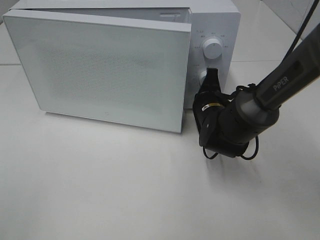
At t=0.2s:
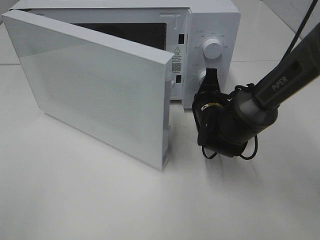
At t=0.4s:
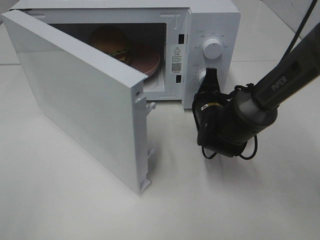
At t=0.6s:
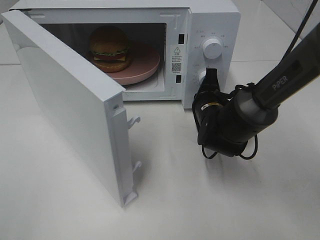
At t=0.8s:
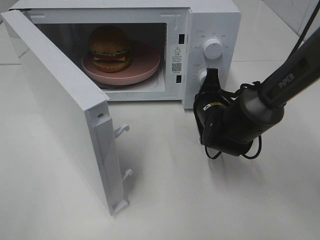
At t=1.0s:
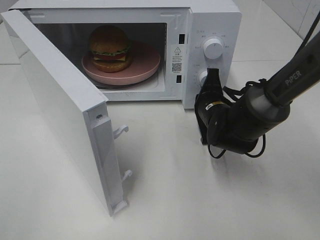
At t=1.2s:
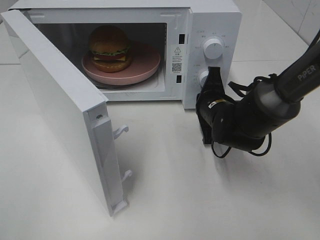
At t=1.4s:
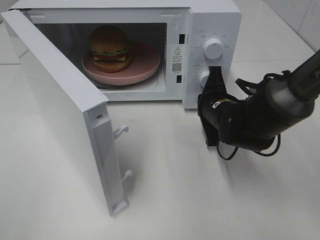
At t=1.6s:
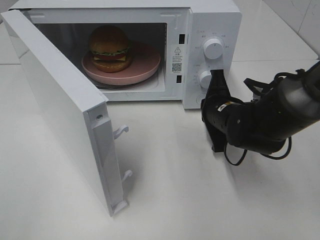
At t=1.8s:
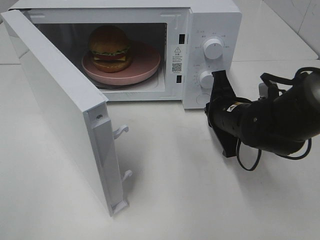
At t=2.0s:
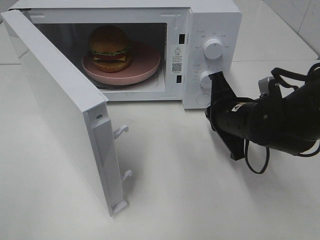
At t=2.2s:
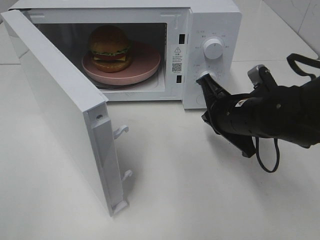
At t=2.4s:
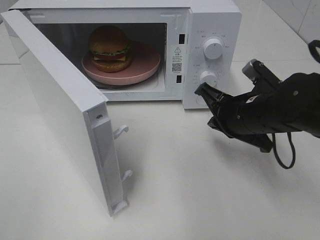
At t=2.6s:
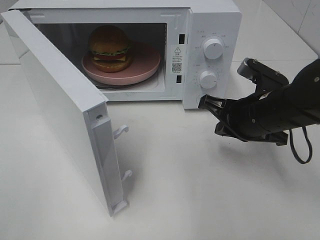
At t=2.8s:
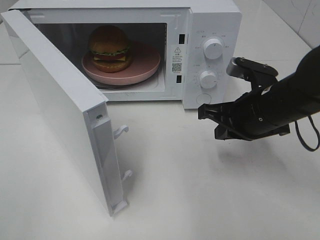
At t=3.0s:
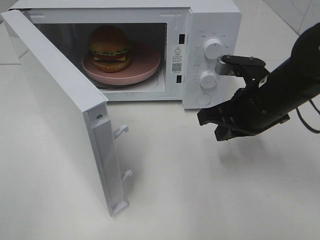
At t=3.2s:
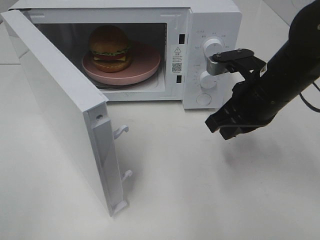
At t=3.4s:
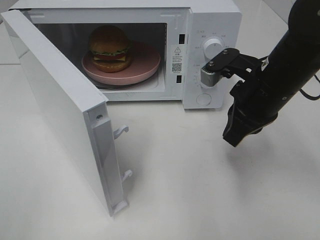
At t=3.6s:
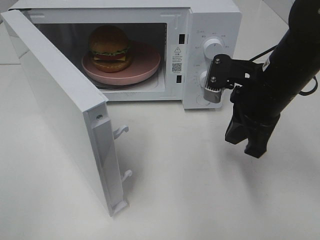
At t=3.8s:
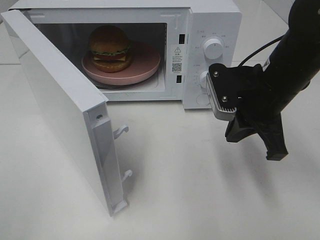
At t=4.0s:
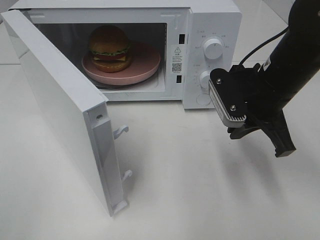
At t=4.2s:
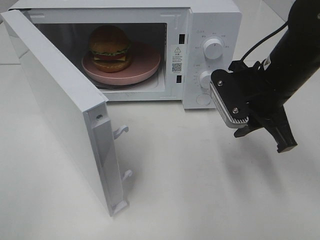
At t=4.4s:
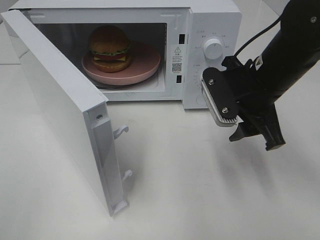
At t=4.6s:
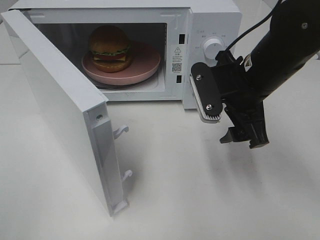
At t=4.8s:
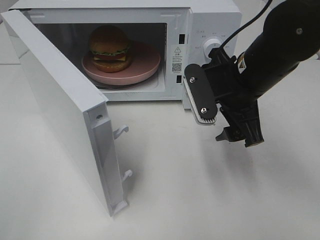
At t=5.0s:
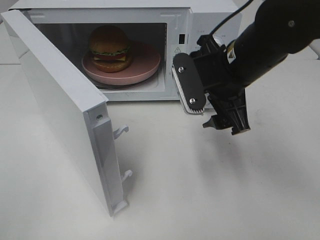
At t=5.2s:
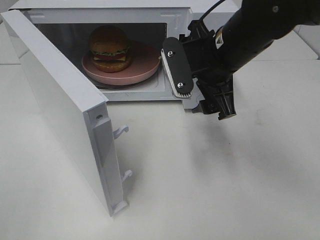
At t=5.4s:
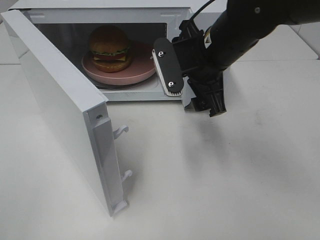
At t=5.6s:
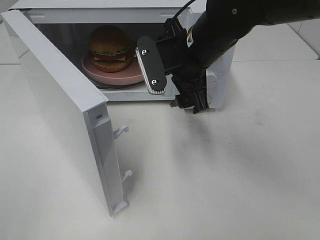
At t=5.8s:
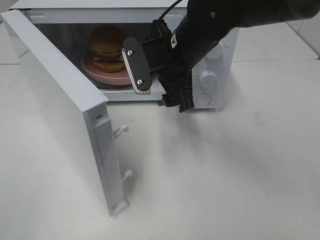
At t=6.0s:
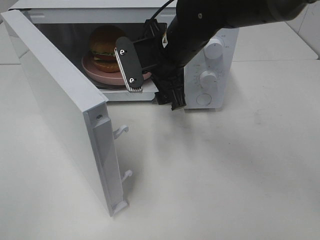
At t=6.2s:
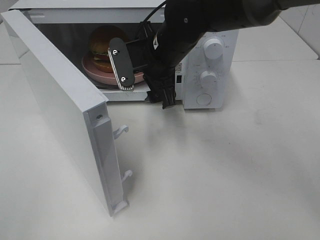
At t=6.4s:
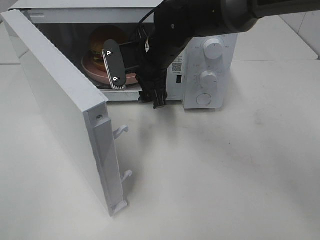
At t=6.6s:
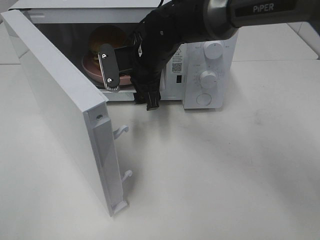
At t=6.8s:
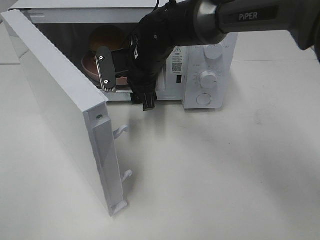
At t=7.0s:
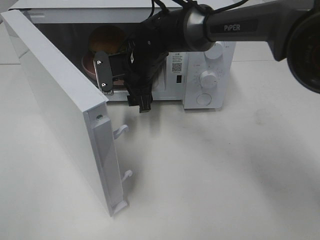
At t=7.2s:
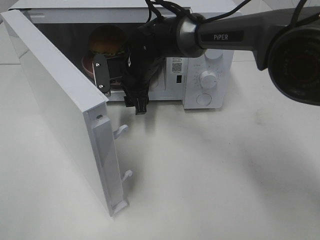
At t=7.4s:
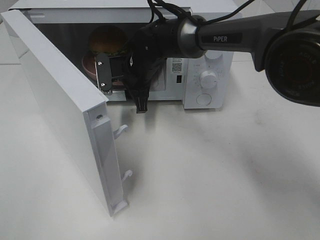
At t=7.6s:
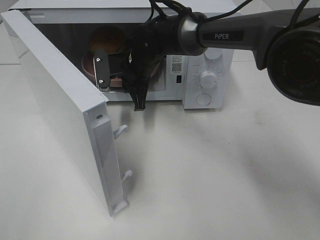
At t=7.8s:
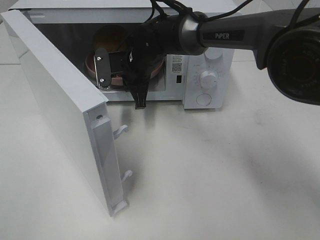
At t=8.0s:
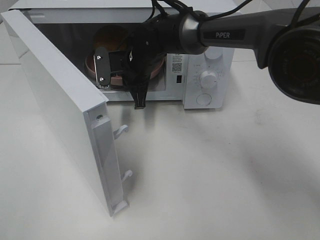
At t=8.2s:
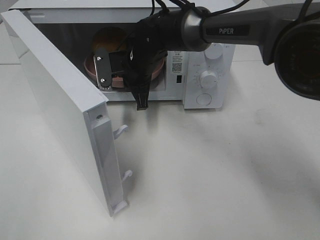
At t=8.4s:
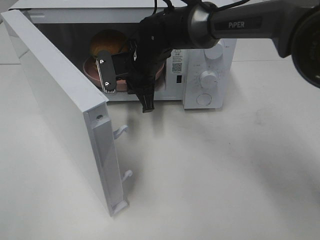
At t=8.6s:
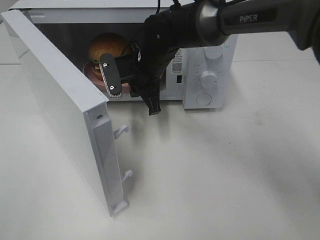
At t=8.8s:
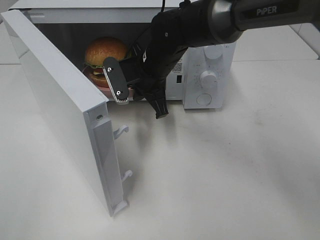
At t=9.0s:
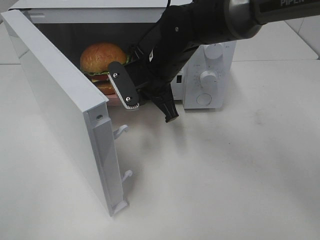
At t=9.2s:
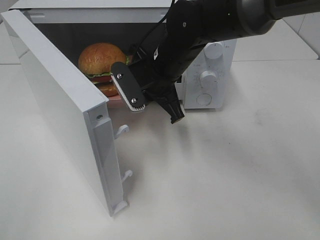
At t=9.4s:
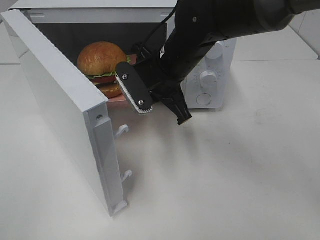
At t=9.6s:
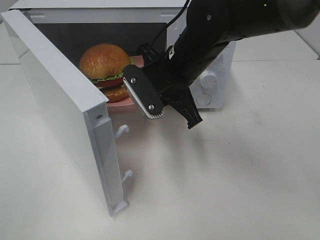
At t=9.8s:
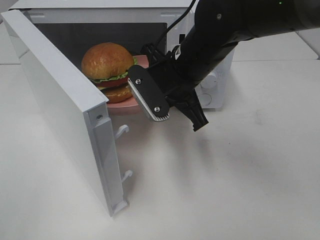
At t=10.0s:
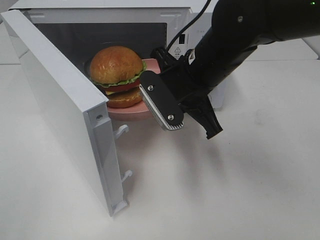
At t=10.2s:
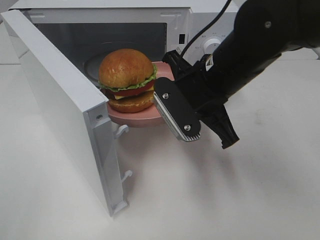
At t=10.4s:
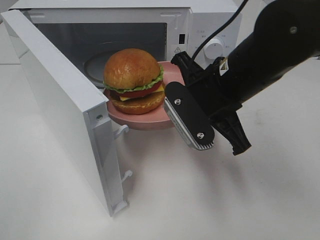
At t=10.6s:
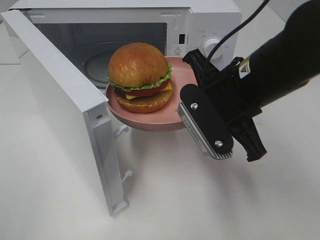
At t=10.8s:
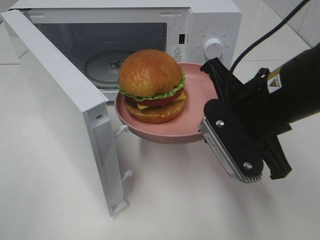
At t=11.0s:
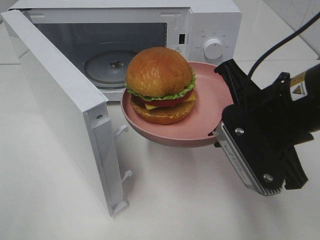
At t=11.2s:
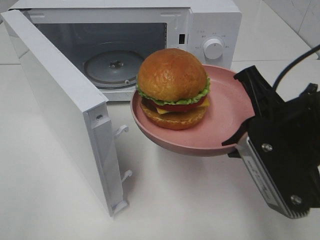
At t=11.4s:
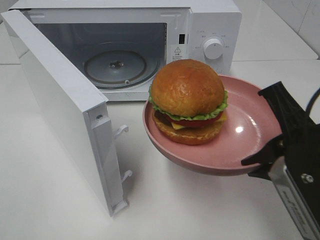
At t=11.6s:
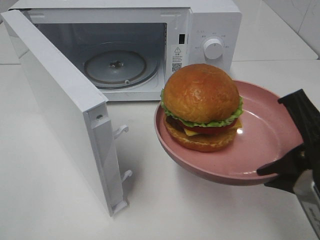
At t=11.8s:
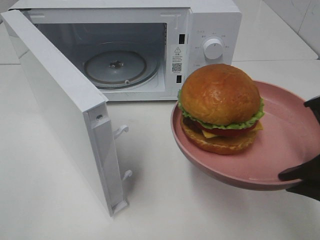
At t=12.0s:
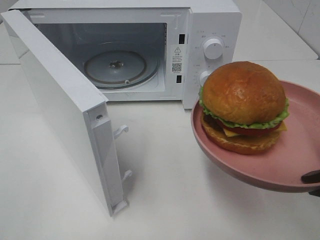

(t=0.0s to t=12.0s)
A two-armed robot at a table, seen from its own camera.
Task of the whole recording: Heat the burger.
Step, t=1.6s - t=7.6s: Right hand: grab the plate with the hamburger.
t=0.0s - t=1.6s: The right gripper changes place by some 5 cm.
t=1.6s - t=3.0s: The right gripper is displaced upward by about 10 cm.
t=3.0s - t=4.4s: The right gripper opens.
t=4.4s - t=6.0s: The right gripper is displaced to the left and forward by roughly 15 cm.
t=6.0s - t=7.6s: The right gripper goes roughly 15 cm forward, downward and to the left, and closes.
t=7.6s - t=9.0s: The right gripper is displaced backward by some 5 cm.
t=9.0s - t=10.4s: The right gripper travels backward and to the right by about 15 cm.
t=10.4s - t=12.0s: The right gripper travels backward and to the right by roughly 20 cm.

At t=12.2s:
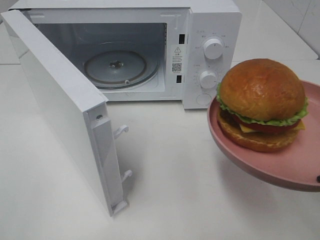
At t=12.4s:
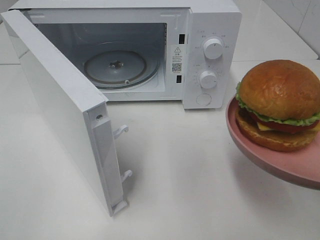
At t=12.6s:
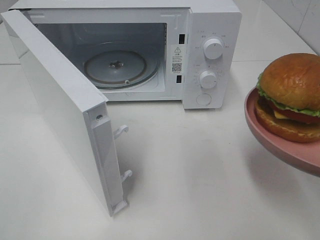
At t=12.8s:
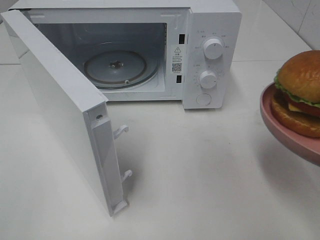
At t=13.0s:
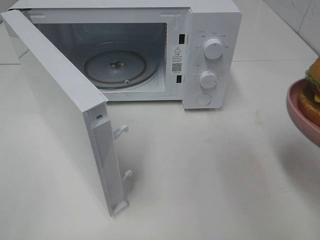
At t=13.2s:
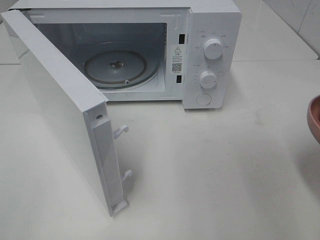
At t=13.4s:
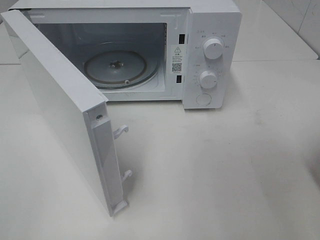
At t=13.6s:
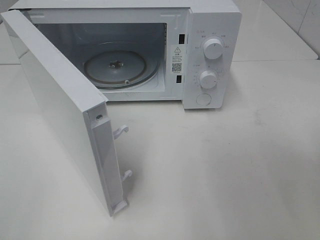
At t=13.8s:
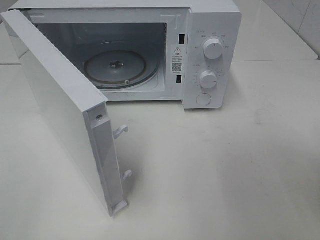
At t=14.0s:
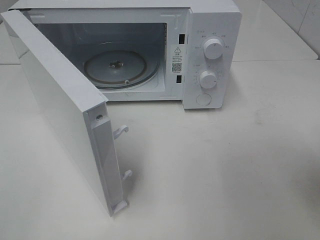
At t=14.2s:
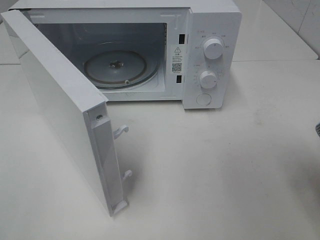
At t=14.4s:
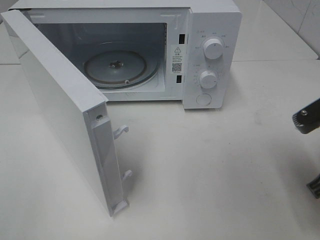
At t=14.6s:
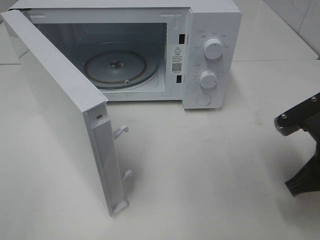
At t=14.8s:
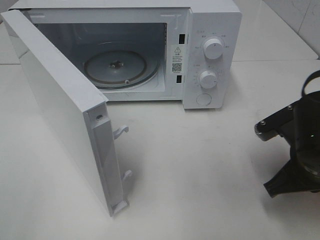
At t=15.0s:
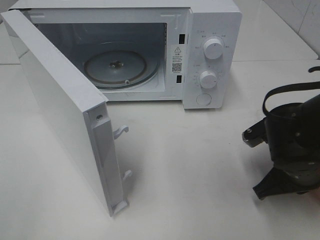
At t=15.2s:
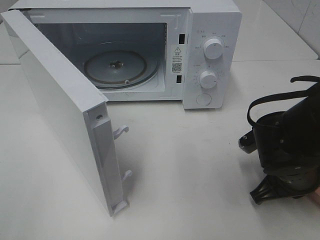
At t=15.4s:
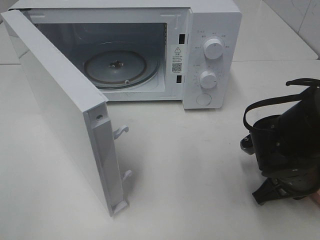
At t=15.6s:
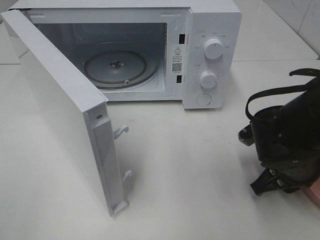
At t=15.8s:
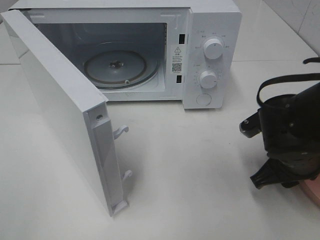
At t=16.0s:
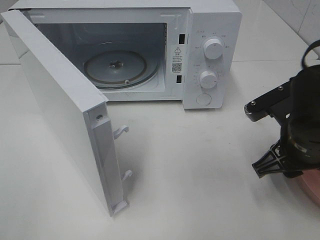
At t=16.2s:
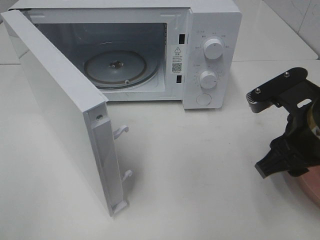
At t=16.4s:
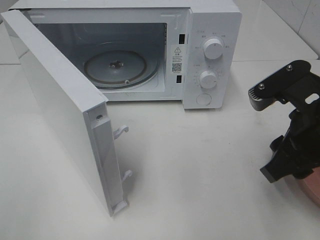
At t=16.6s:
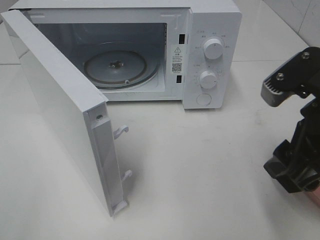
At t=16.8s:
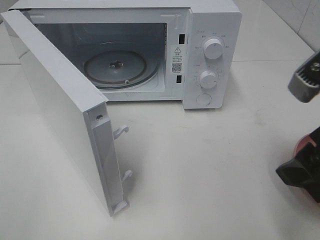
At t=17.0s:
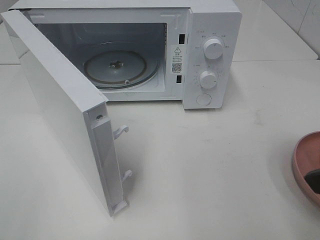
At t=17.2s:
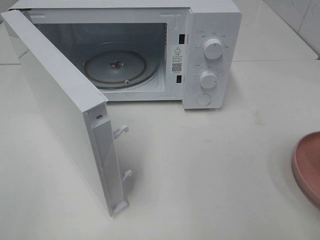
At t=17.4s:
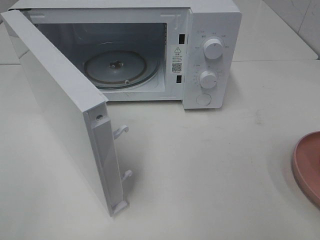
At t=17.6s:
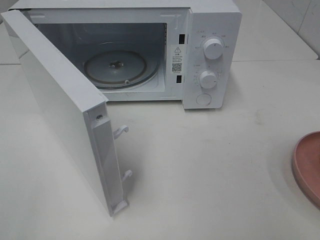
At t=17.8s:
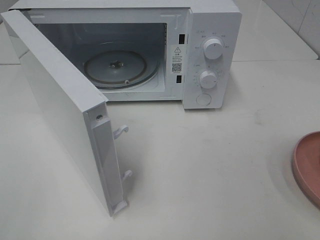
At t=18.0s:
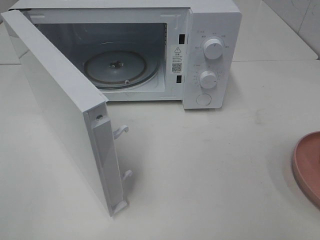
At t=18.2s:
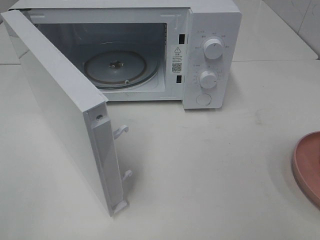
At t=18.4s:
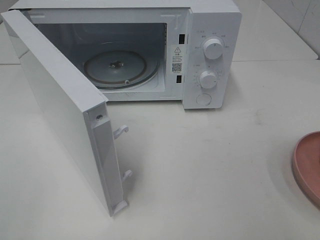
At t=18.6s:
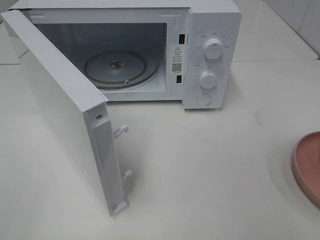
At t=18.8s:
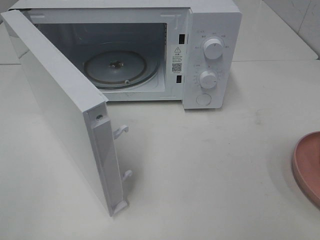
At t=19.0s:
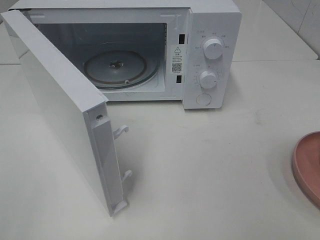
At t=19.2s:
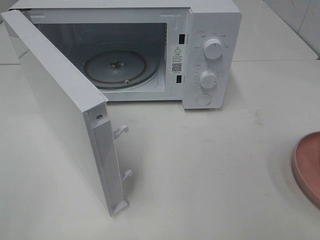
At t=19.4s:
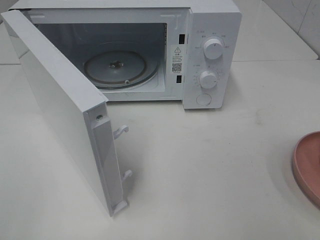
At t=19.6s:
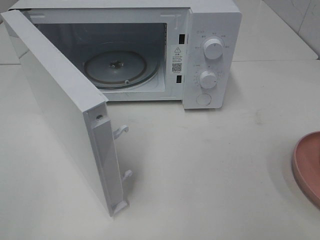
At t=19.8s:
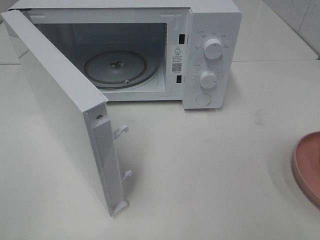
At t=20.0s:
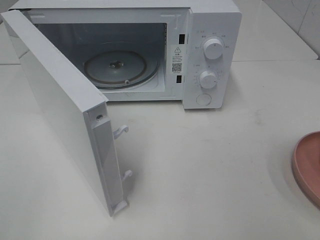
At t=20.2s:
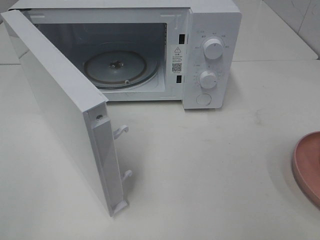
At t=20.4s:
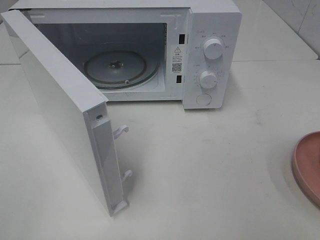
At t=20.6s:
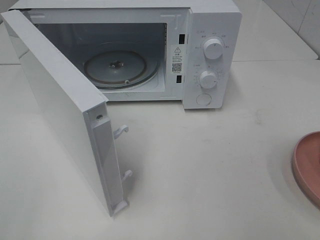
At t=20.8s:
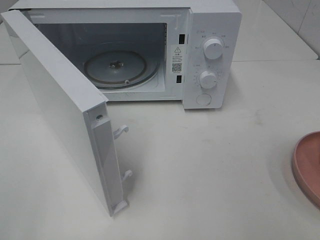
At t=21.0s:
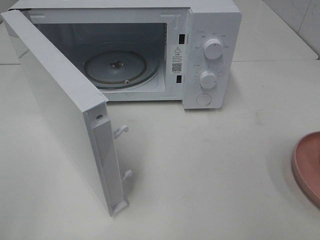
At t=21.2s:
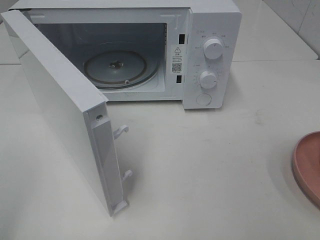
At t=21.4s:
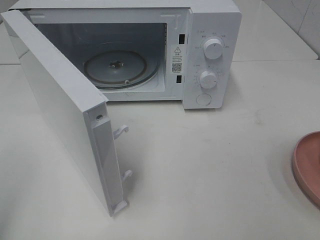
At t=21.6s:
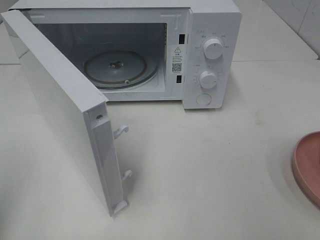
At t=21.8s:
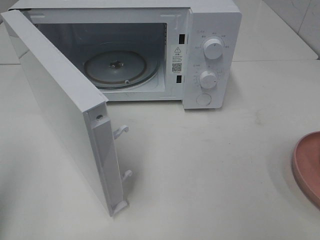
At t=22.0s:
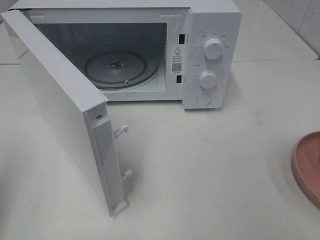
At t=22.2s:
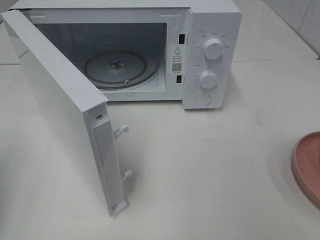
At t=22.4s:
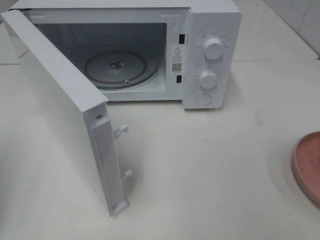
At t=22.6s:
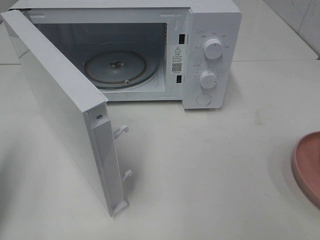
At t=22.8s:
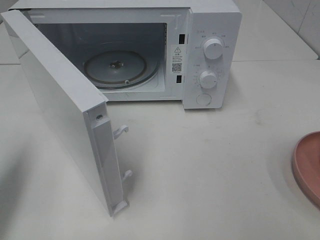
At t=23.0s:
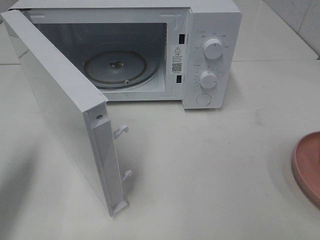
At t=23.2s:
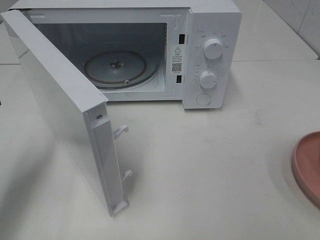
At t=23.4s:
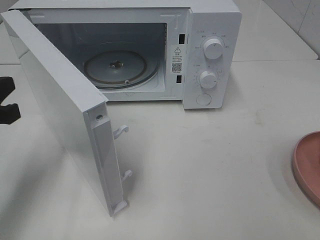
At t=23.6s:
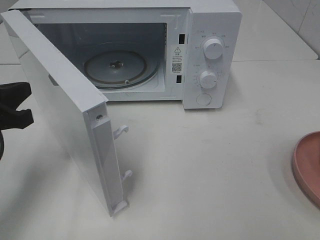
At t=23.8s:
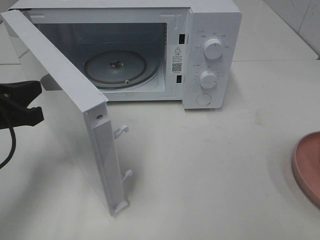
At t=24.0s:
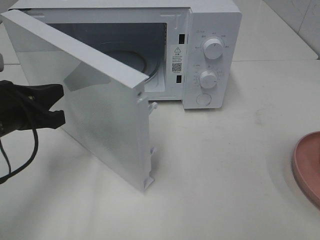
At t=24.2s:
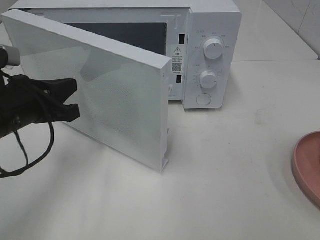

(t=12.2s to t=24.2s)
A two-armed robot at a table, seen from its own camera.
Task of the whole recording: Heat the burger.
Step, t=12.2s - t=15.6s: Right hand: place the plate on the table.
t=12.2s - t=13.8s: The right gripper ends up some 5 cm from where it was.
t=13.8s - t=15.2s: The right gripper is displaced downward, forward and to the left by about 20 cm.
t=15.2s - t=16.6s: The right gripper heads upward, covering about 15 cm, and opens up.
t=16.6s - t=18.2s: The right gripper is displaced backward and to the right by roughly 15 cm.
t=21.2s - t=22.6s: The left gripper moves forward and downward, approximately 15 cm, and closes up.
t=22.6s - t=24.2s: The left gripper shifts roughly 15 cm to the right, forward and downward.
